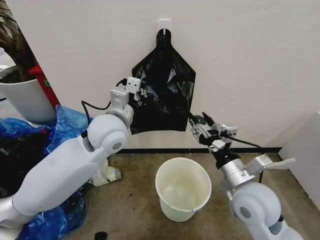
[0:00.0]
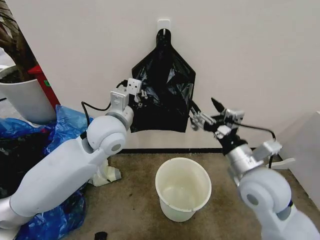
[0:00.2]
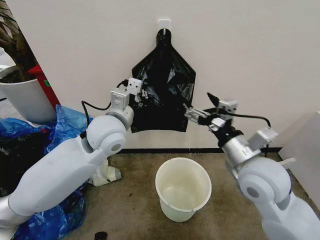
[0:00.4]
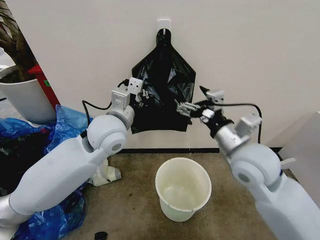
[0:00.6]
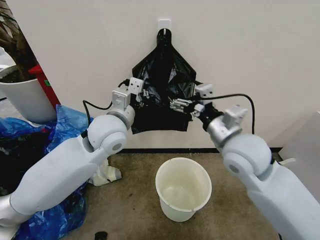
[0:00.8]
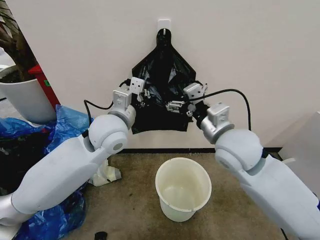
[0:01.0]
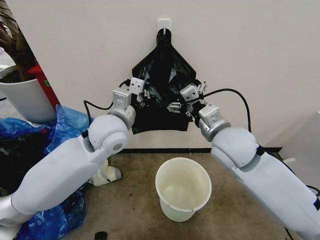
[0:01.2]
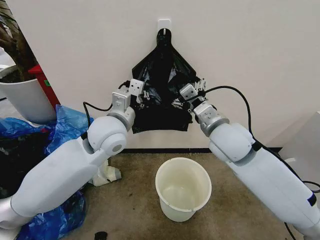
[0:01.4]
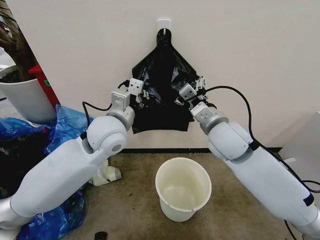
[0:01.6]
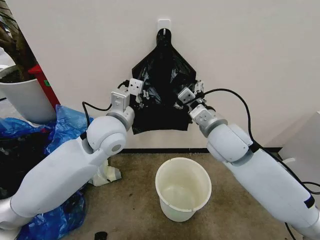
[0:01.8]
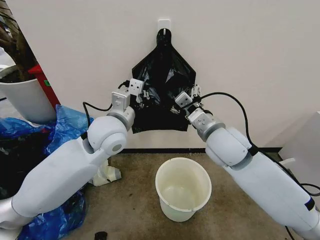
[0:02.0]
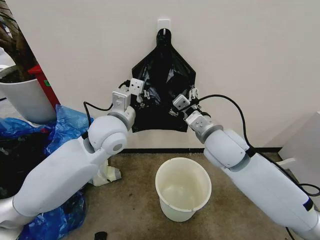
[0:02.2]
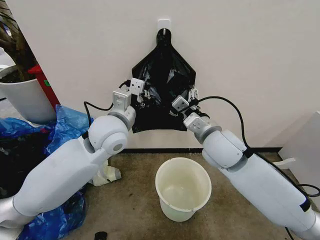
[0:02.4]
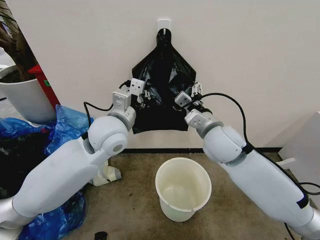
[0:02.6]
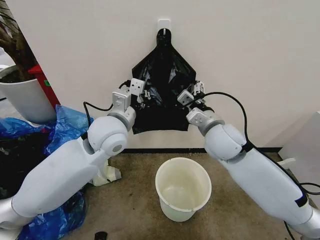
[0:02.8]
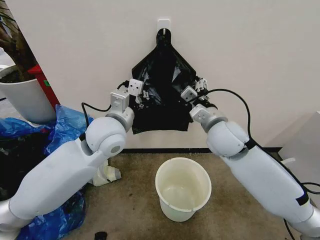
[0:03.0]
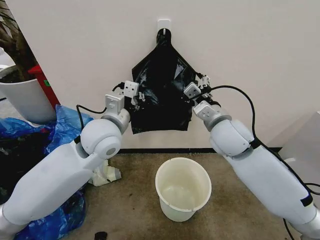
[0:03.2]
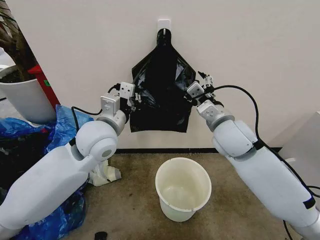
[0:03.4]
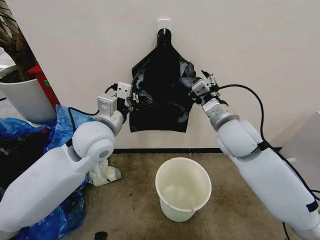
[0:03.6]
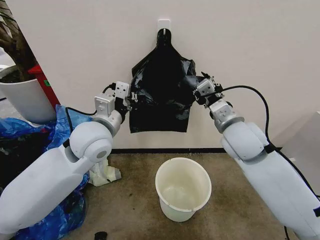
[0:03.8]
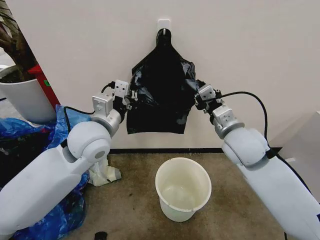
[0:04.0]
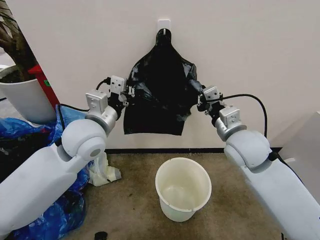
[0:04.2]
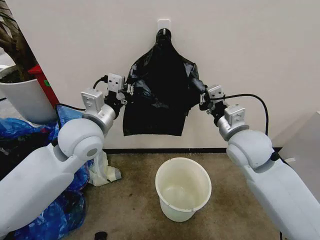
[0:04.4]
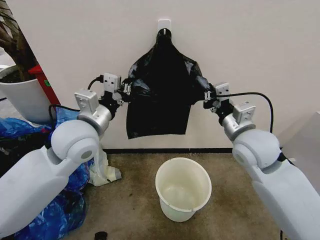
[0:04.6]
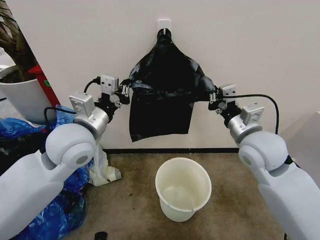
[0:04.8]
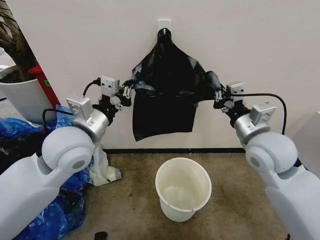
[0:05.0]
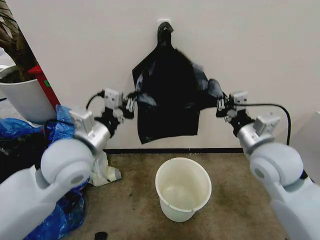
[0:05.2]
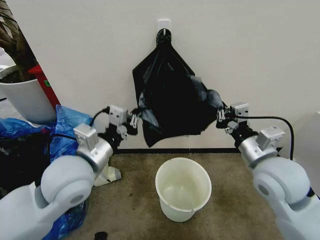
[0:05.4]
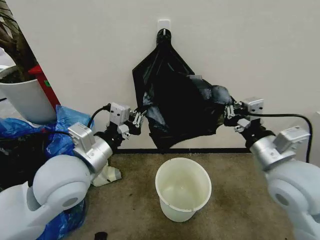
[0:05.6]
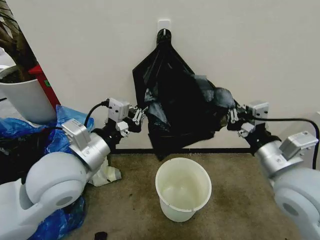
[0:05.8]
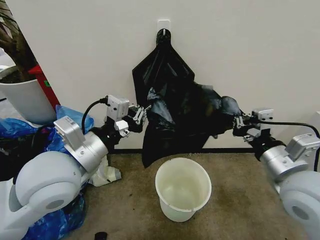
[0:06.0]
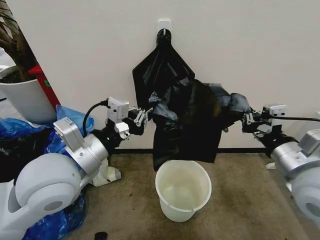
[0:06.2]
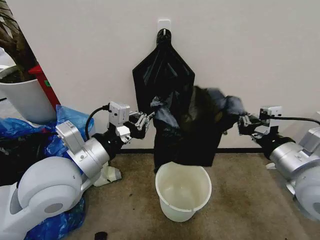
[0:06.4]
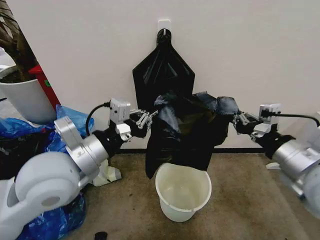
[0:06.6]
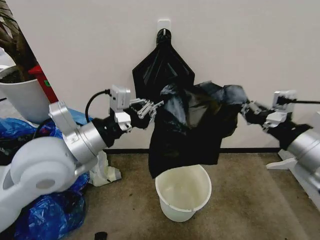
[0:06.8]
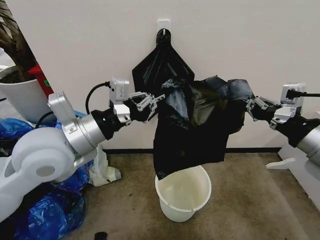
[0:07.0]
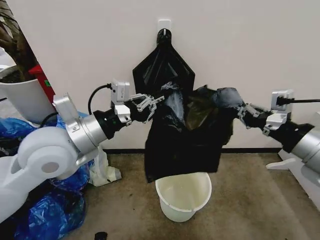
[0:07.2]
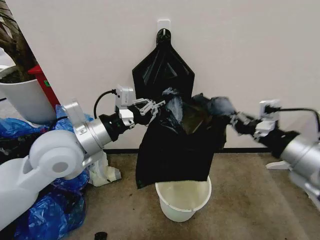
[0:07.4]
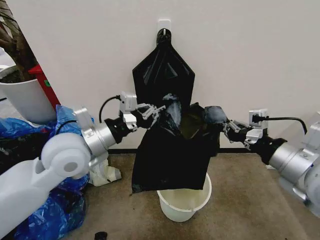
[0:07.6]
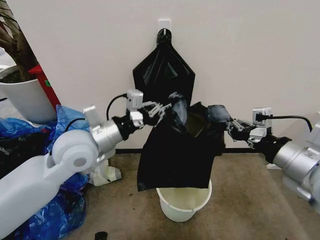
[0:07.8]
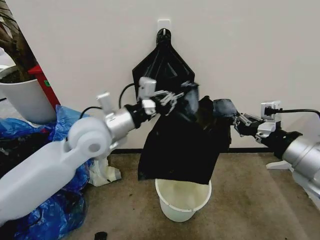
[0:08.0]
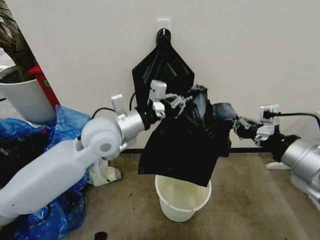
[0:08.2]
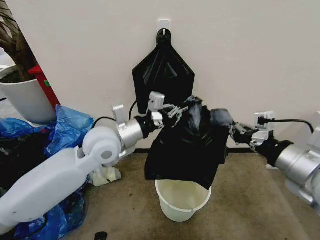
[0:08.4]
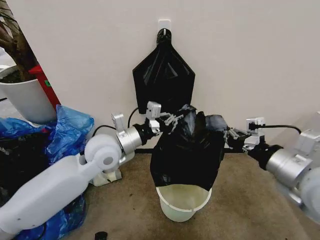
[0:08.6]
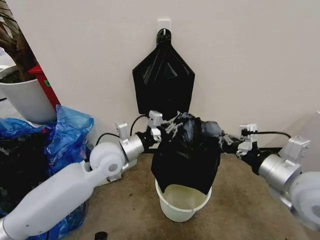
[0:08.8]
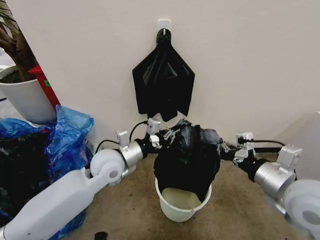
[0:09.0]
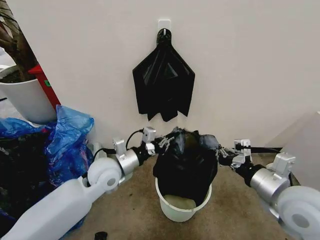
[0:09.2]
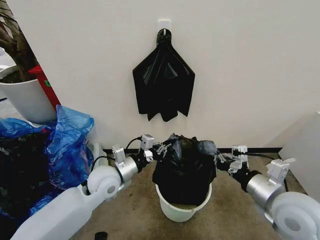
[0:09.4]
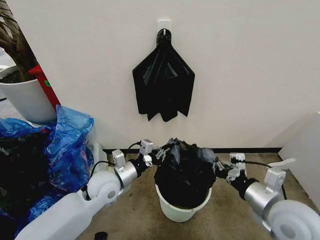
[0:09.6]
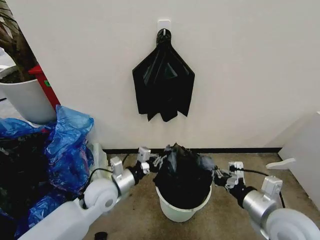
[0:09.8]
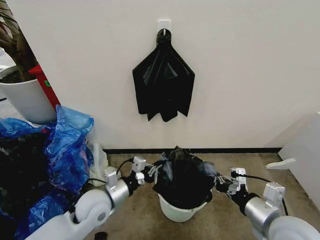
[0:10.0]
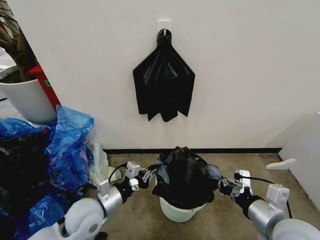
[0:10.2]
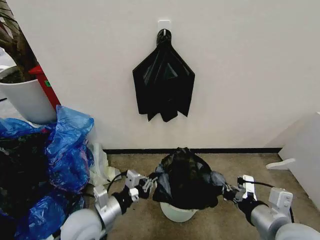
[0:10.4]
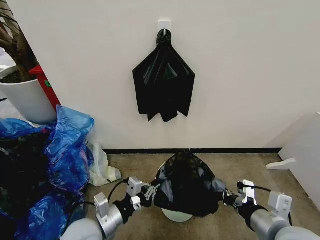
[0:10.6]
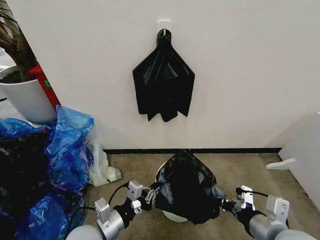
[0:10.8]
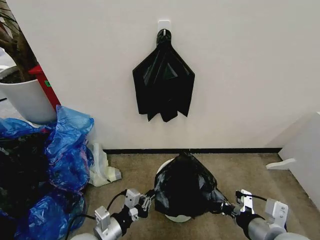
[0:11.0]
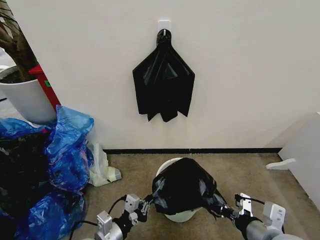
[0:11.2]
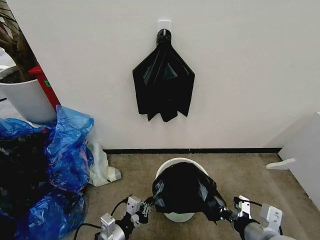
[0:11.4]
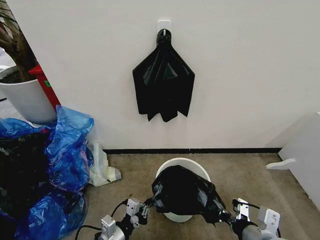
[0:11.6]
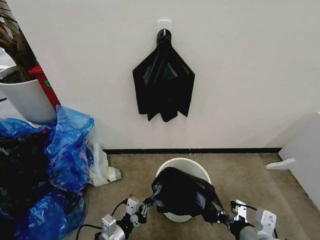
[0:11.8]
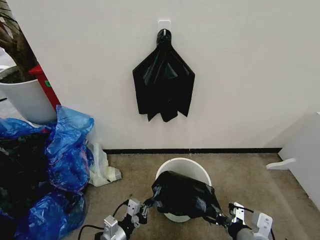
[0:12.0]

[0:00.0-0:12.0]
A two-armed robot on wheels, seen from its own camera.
Task of the whole recording: Place the garbage bag over the trash bin.
0:00.0 to 0:01.6: The right gripper goes approximately 15 cm forward, upward and to the left.
0:01.6 to 0:03.0: The grippers stay close to where they were, moving slightly.
0:03.0 to 0:04.4: The left gripper heads to the left, covering approximately 5 cm. The right gripper changes place by roughly 5 cm, and closes up.
0:04.4 to 0:06.0: The left gripper heads backward, covering some 10 cm. The right gripper travels backward and to the right by about 15 cm.
0:06.0 to 0:07.6: The left gripper goes about 5 cm forward.
0:07.6 to 0:09.0: The left gripper goes about 15 cm downward and to the right; the right gripper moves downward, approximately 5 cm.
0:09.0 to 0:10.4: The right gripper travels downward and backward by about 10 cm, while the left gripper travels backward and downward by some 15 cm.
0:10.4 to 0:12.0: The right gripper is displaced downward by approximately 10 cm, while the left gripper is displaced downward and backward by approximately 10 cm.

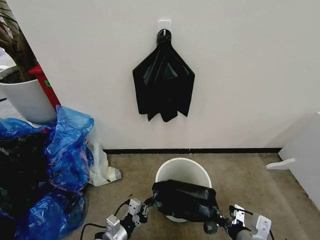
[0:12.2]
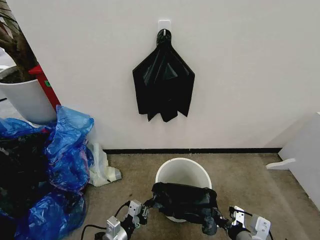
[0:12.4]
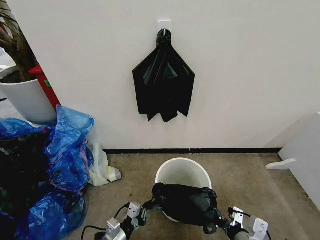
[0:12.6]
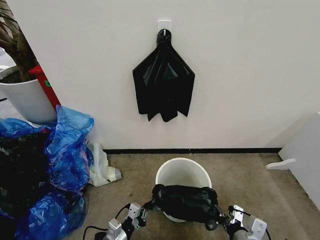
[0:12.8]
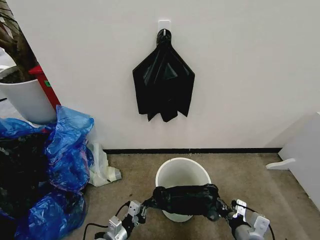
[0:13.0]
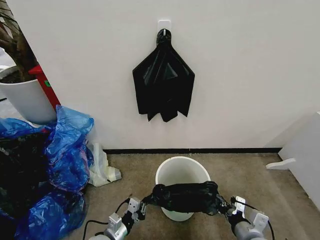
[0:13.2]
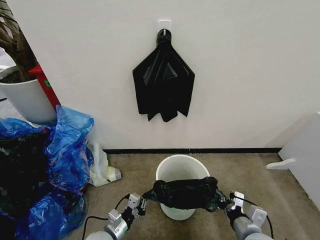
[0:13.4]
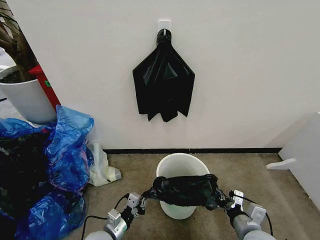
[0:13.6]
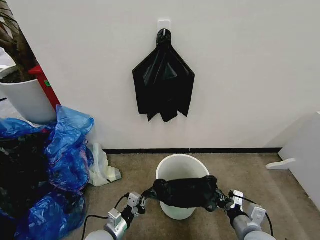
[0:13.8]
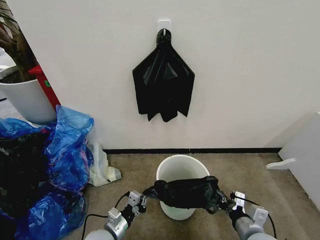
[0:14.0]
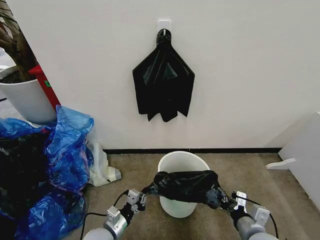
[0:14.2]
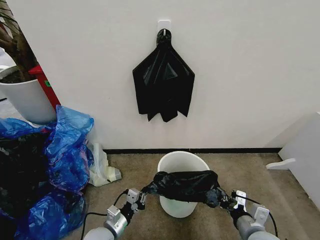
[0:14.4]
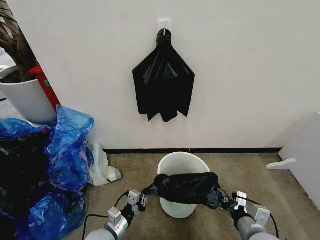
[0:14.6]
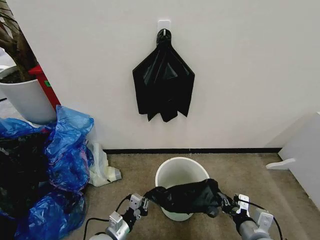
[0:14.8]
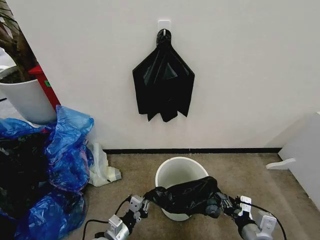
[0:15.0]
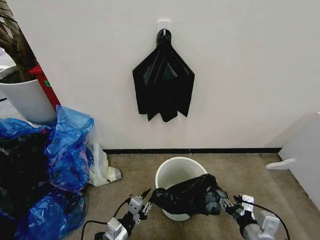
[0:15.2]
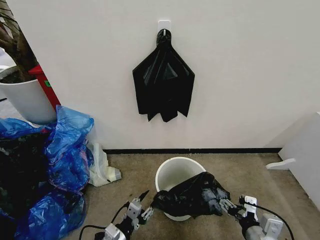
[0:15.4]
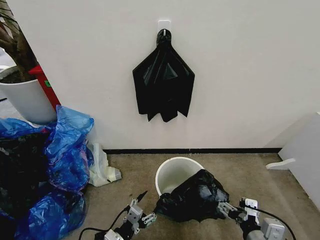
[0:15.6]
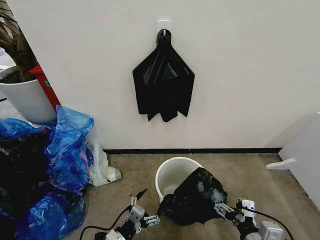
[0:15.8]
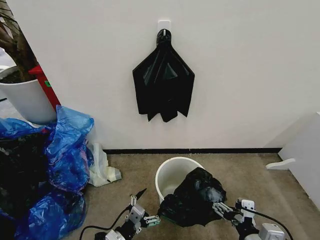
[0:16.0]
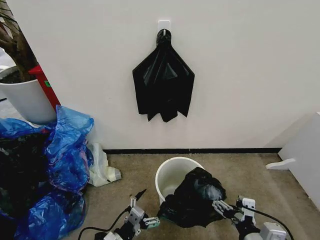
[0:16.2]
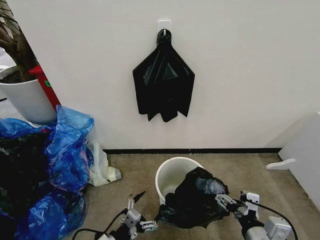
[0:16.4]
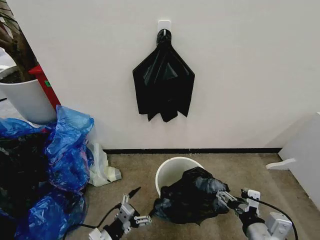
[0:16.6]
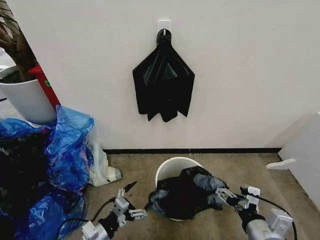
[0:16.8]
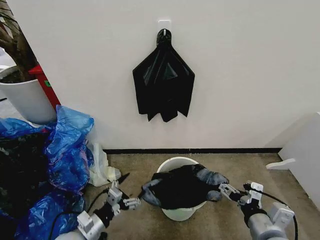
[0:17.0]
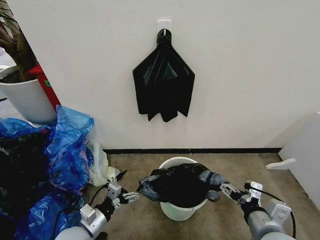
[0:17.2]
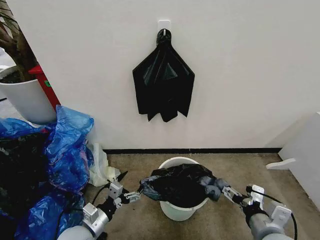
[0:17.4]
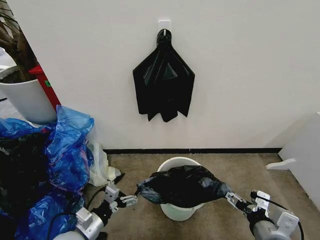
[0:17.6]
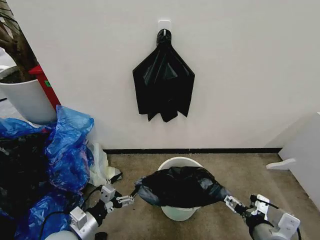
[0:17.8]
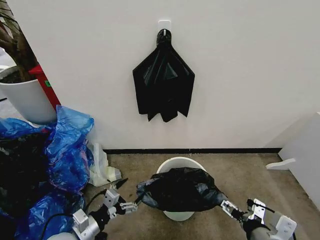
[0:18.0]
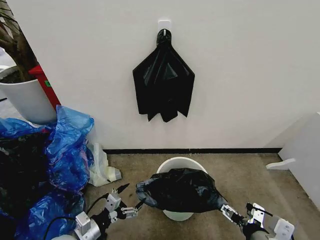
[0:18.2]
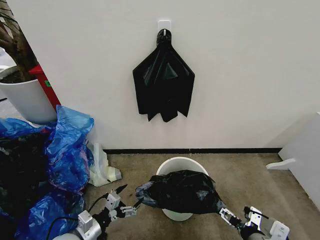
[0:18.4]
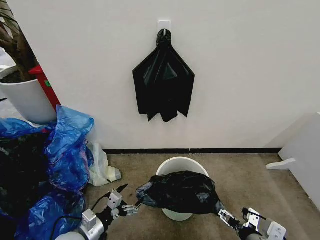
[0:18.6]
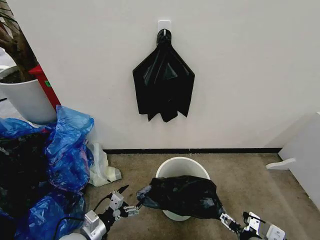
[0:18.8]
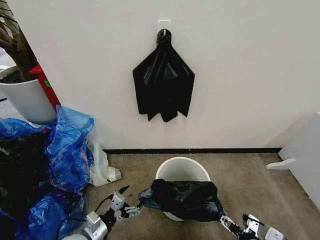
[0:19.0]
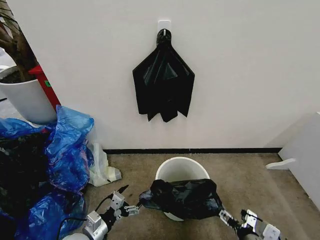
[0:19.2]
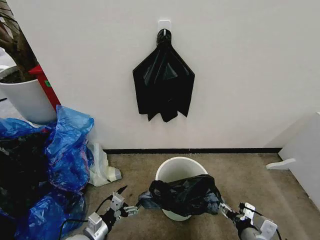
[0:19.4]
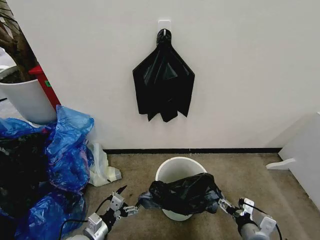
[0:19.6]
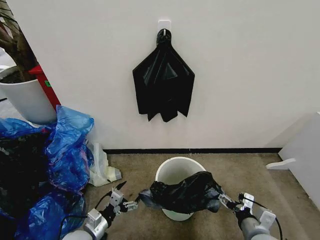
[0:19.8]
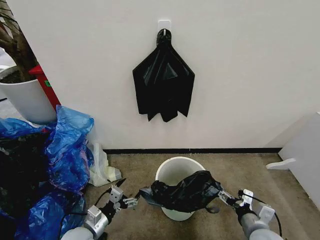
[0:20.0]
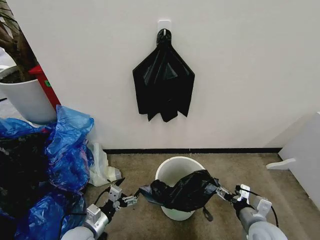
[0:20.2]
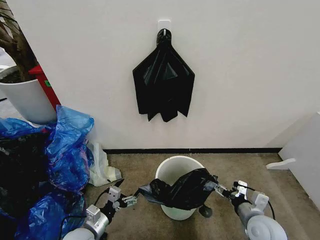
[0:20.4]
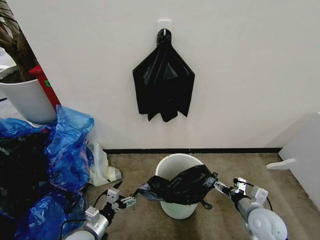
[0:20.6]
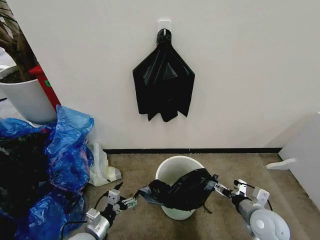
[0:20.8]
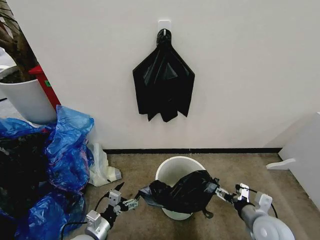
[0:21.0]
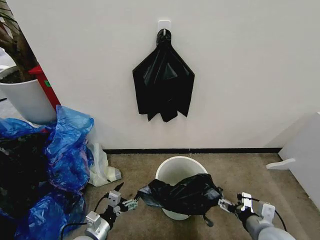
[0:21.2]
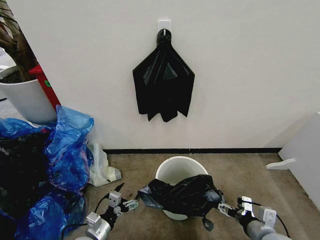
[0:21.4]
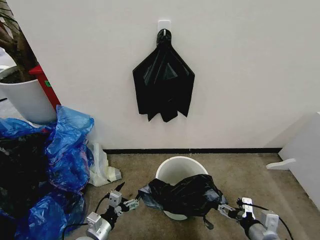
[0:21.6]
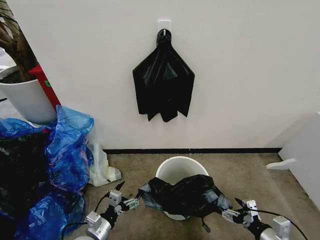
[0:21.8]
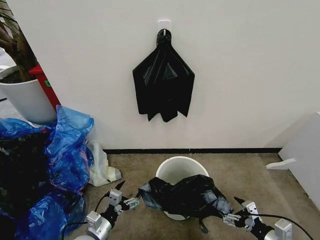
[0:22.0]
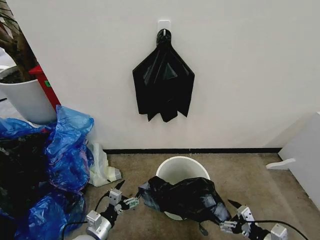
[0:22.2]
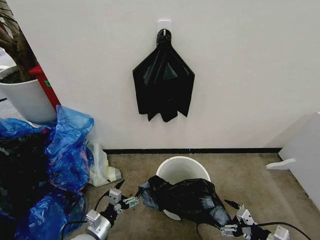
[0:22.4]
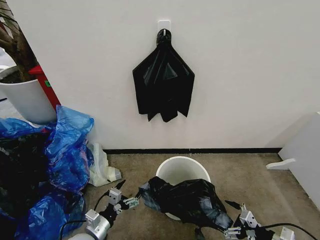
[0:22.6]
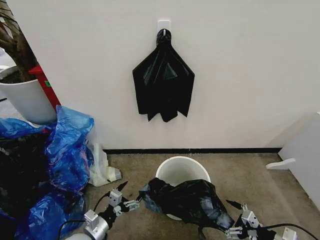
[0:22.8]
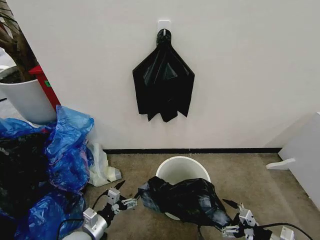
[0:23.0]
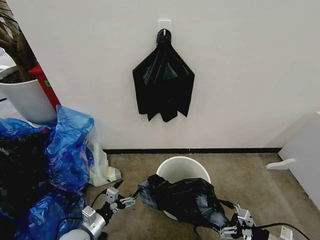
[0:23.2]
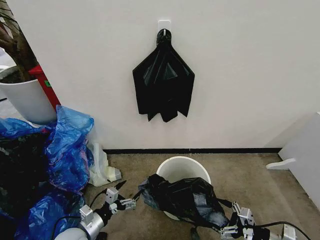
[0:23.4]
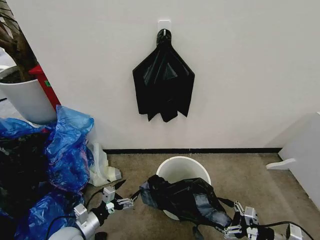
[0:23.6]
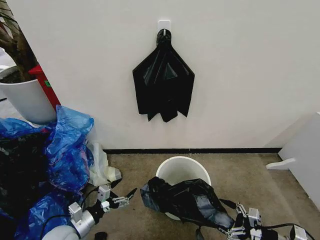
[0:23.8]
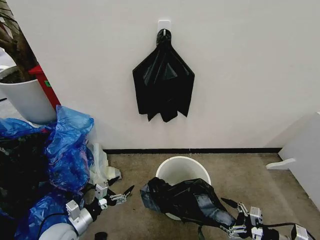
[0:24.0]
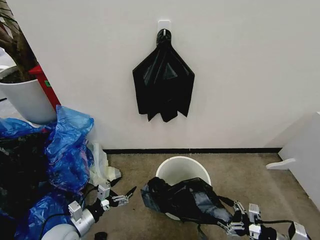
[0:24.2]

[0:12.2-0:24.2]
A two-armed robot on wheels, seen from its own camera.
Task of the whole recording: Place the garbage bag over the trash bin.
0:12.2 to 0:13.8: The right gripper moves downward, approximately 5 cm.
0:13.8 to 0:15.2: The right gripper ends up roughly 5 cm from where it was, and opens its fingers.
0:15.2 to 0:16.6: The right gripper shifts by about 5 cm, and opens, while the left gripper shifts by approximately 5 cm, and opens.
0:16.6 to 0:18.2: The left gripper changes place by roughly 5 cm.
0:18.2 to 0:19.8: The left gripper heads downward, covering approximately 5 cm; the right gripper moves downward, approximately 10 cm.
0:21.2 to 0:22.6: The right gripper heads to the right, covering approximately 10 cm.
0:22.6 to 0:24.2: The left gripper travels to the left by approximately 5 cm.
